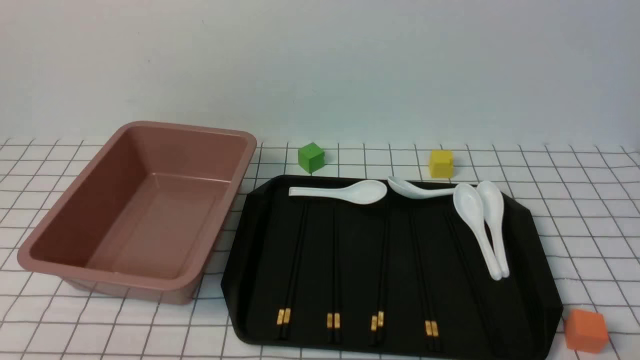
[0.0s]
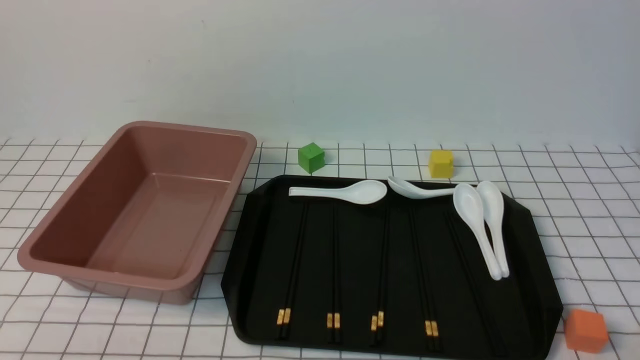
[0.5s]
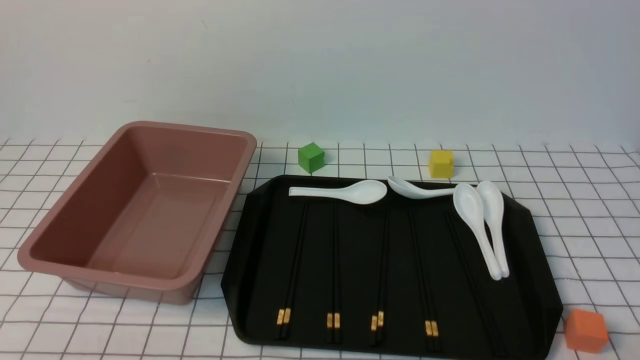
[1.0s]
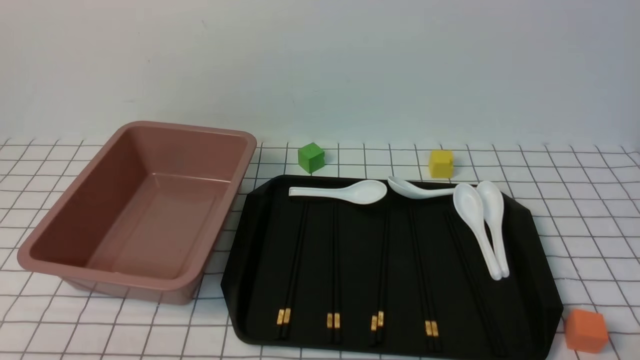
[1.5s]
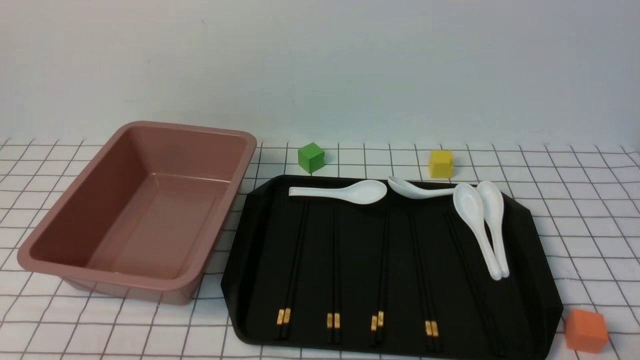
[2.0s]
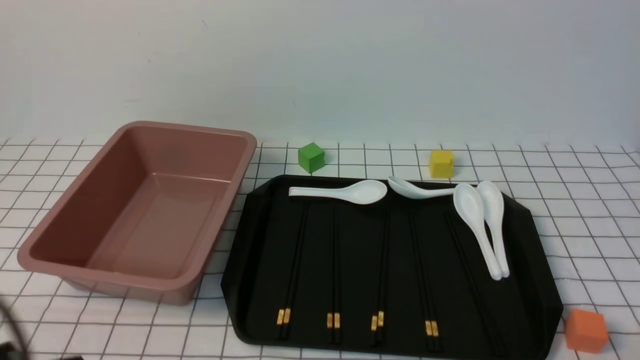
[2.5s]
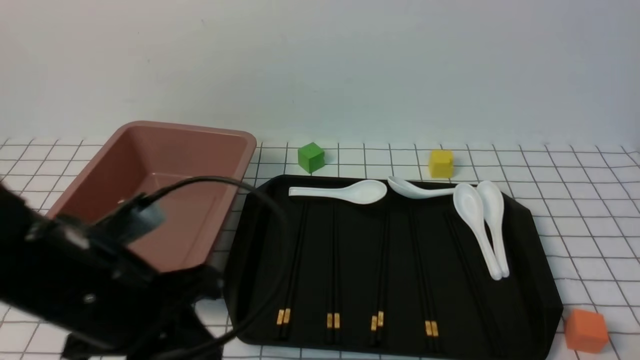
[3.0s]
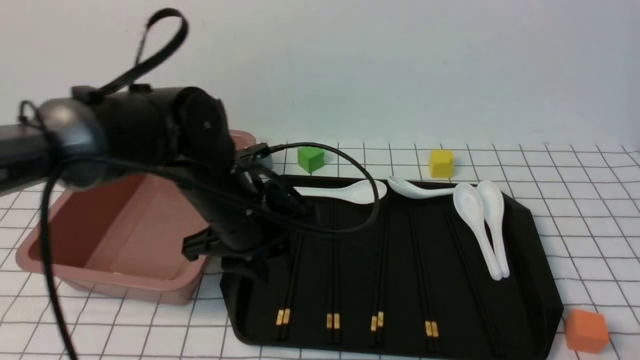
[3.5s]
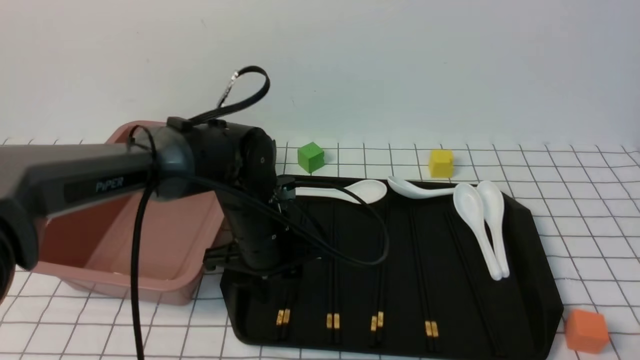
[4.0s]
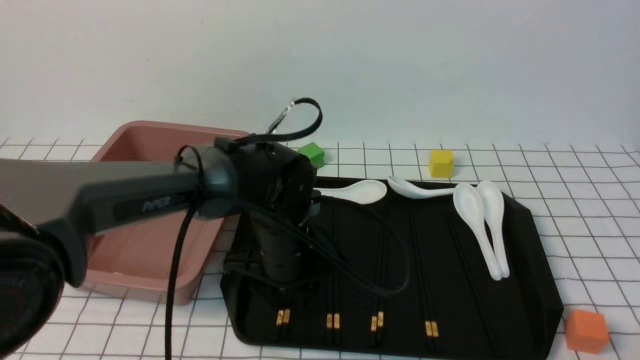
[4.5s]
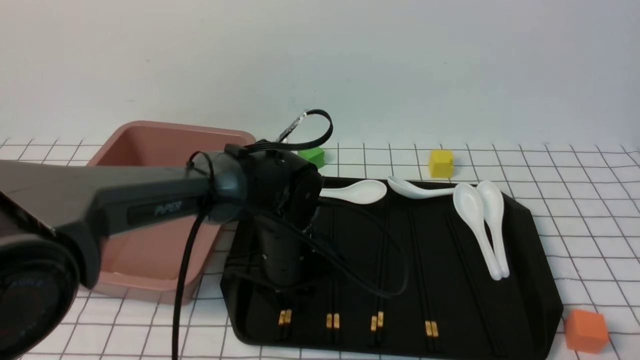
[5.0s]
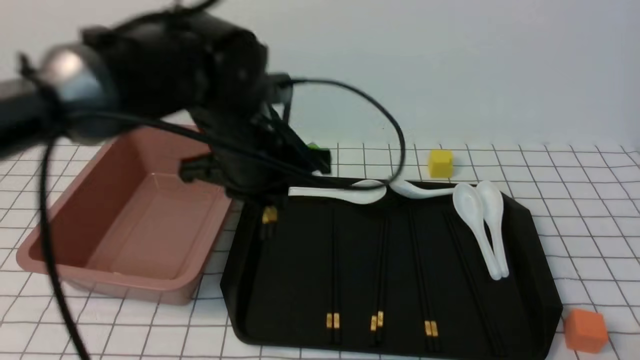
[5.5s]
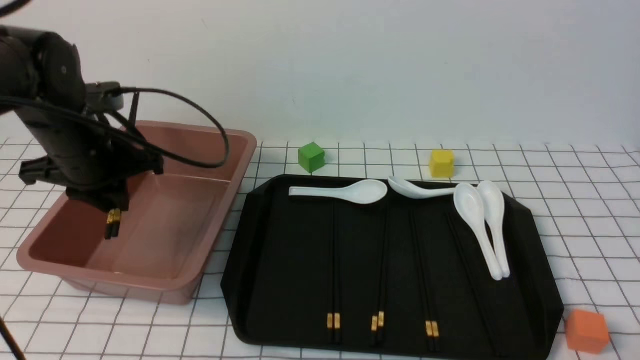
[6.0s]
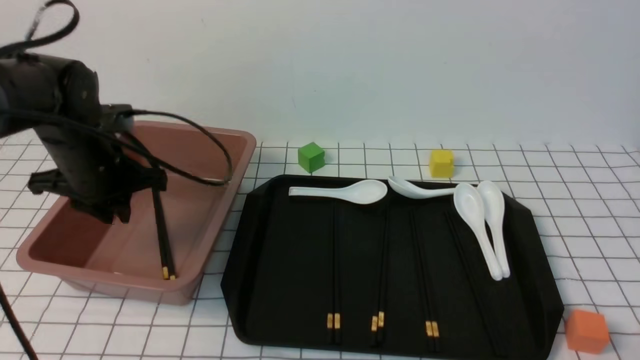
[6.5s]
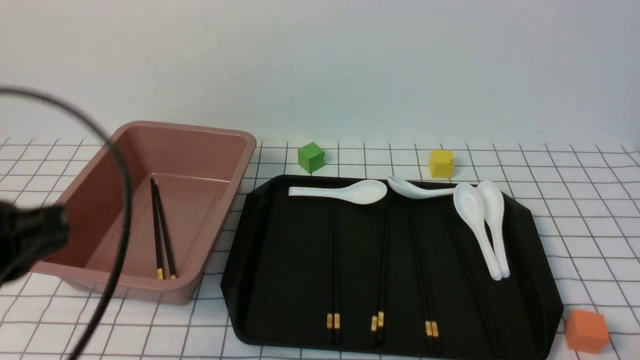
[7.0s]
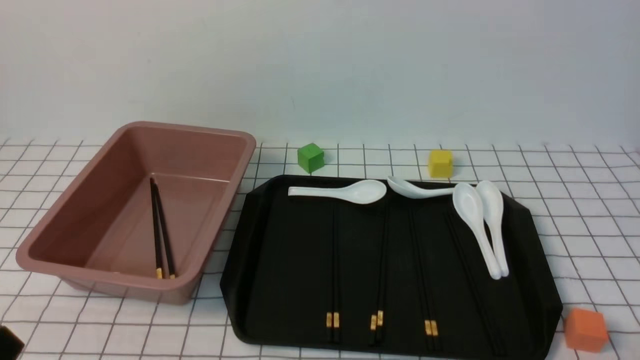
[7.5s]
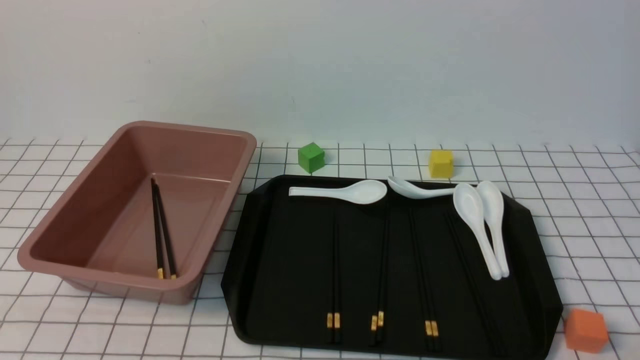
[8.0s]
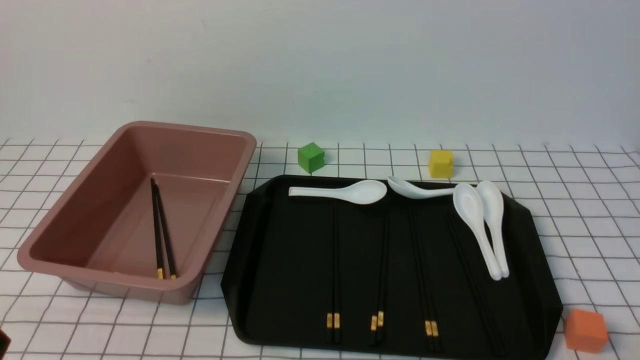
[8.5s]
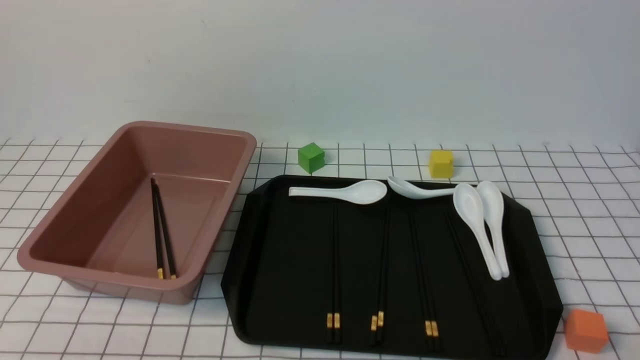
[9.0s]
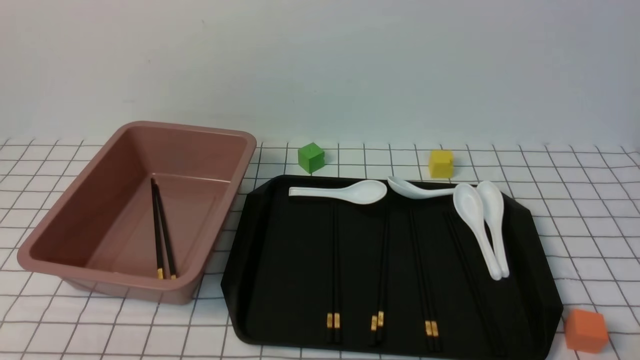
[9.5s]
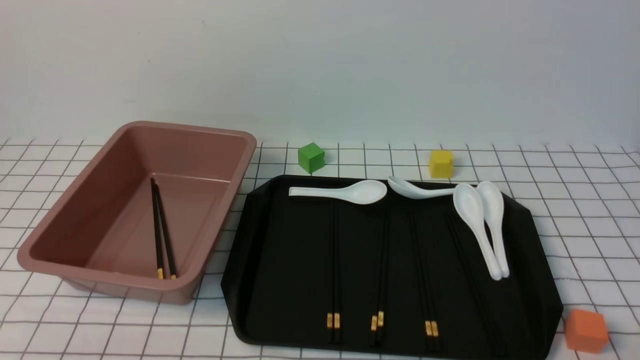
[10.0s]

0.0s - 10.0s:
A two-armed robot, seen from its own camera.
Step, 0.0s - 5.0s: use the left arm to grab a pair of chopsticks.
Step, 5.5s - 6.5s: use the left arm to put the chopsticks into the lunch box.
2.0s - 4.0s: The left gripper goes roughly 35 cm forward and to the right, and closes, then reopens.
4.0s - 6.0s: The left gripper is displaced to the left and upward by roughly 20 cm, and closes up.
6.0s - 8.0s: The left gripper goes about 35 cm backward, and closes.
